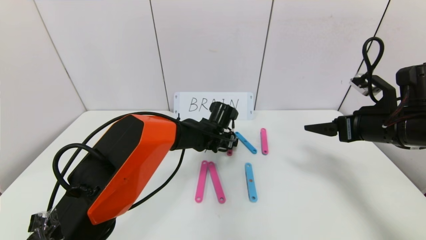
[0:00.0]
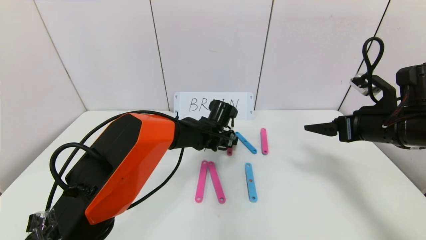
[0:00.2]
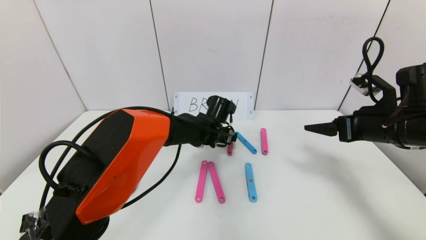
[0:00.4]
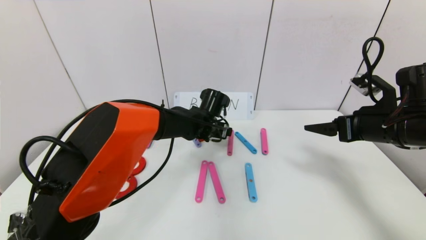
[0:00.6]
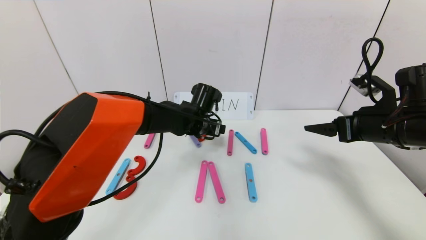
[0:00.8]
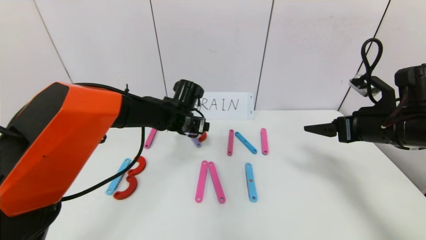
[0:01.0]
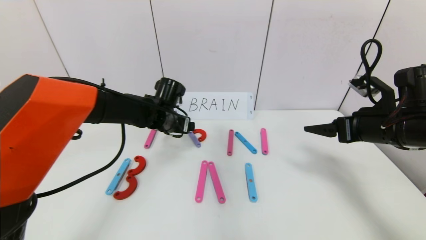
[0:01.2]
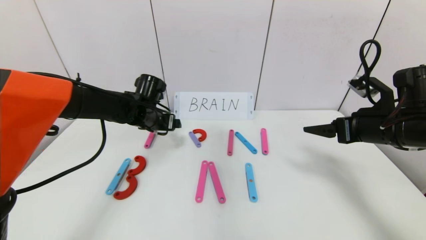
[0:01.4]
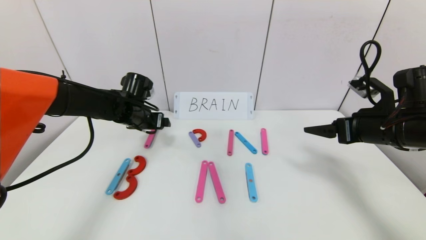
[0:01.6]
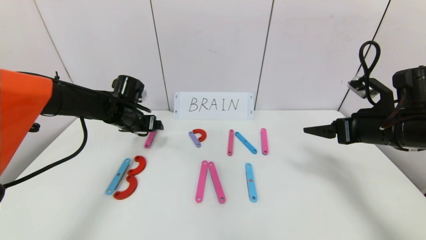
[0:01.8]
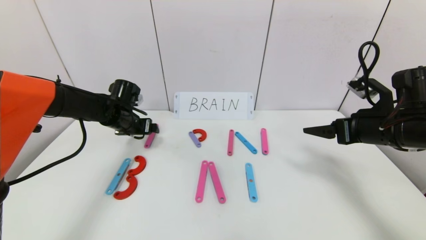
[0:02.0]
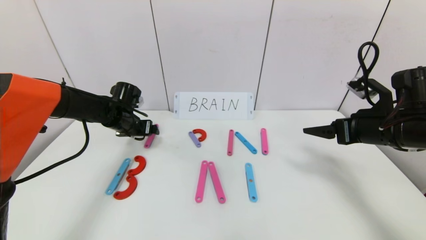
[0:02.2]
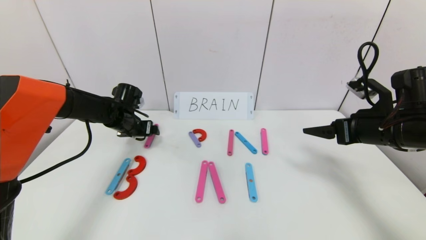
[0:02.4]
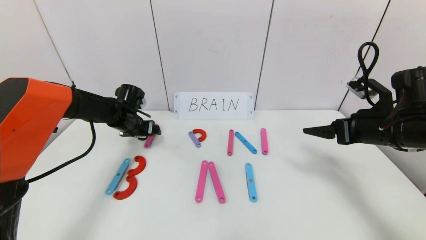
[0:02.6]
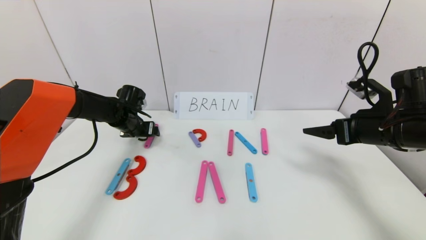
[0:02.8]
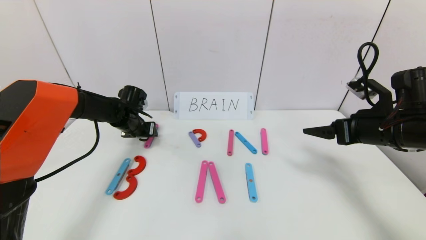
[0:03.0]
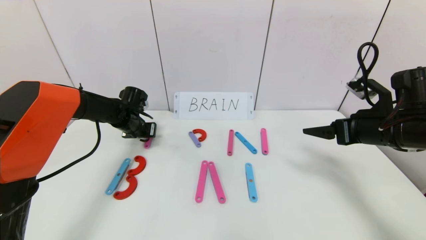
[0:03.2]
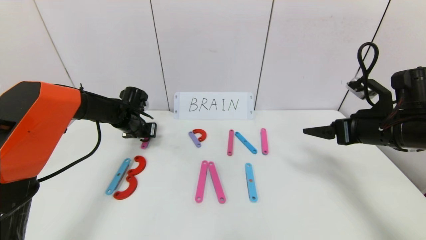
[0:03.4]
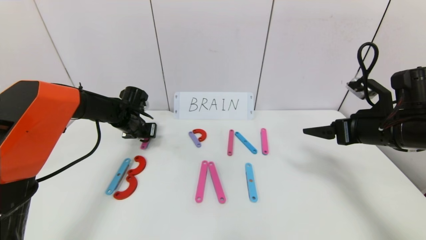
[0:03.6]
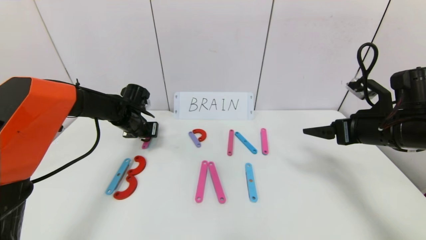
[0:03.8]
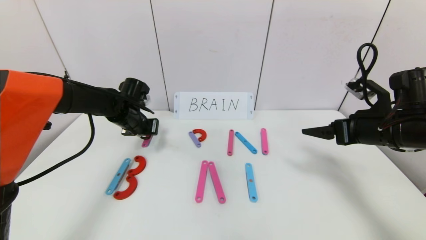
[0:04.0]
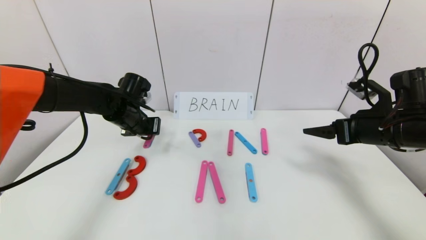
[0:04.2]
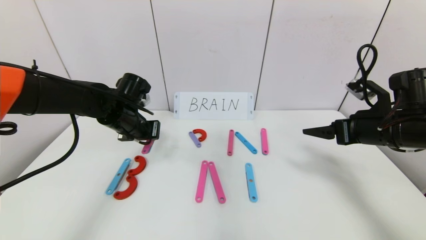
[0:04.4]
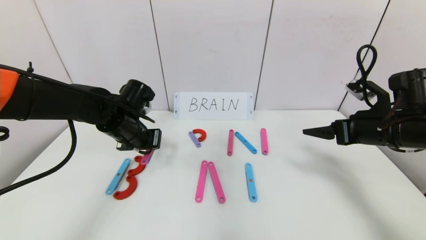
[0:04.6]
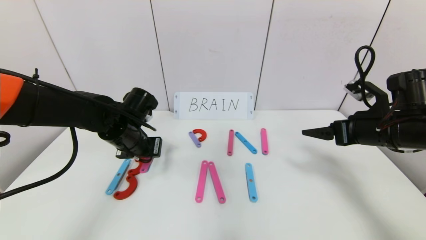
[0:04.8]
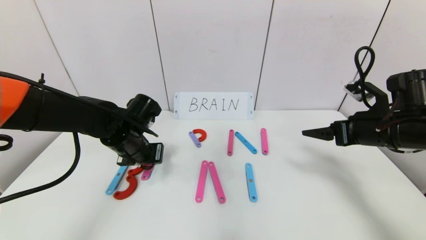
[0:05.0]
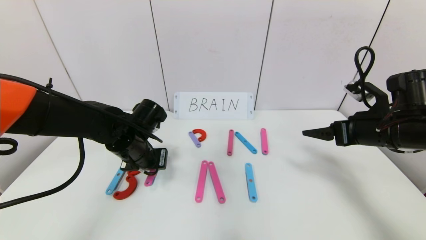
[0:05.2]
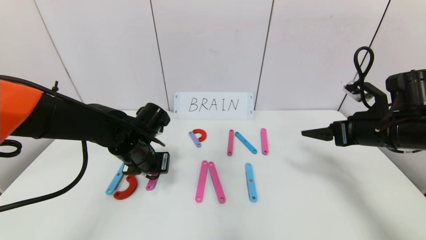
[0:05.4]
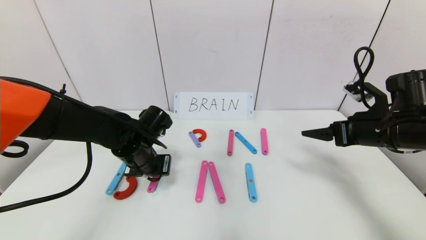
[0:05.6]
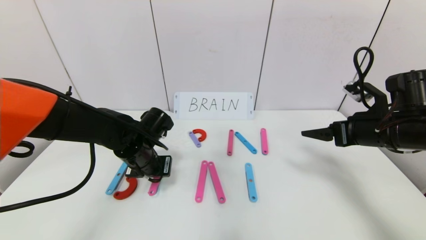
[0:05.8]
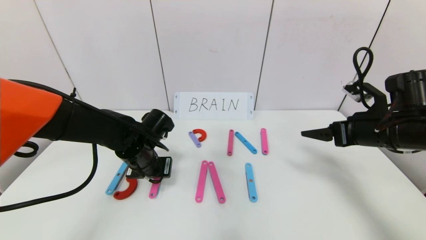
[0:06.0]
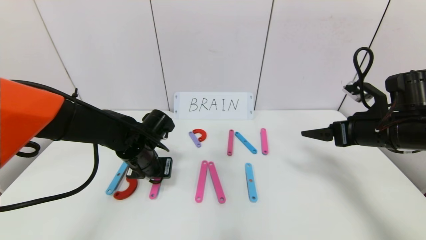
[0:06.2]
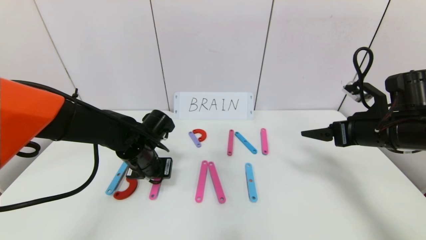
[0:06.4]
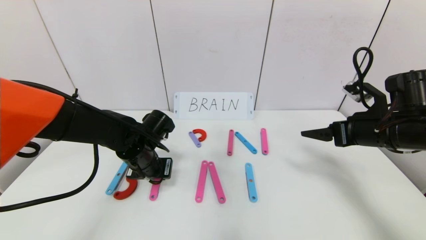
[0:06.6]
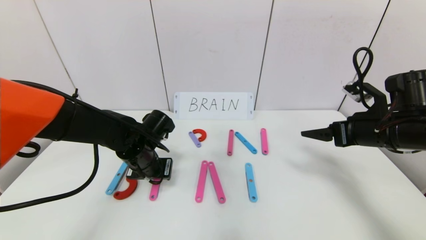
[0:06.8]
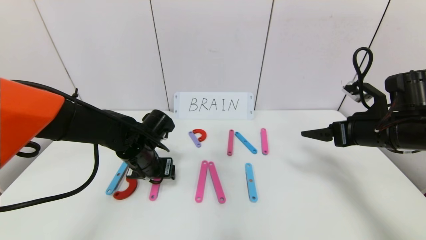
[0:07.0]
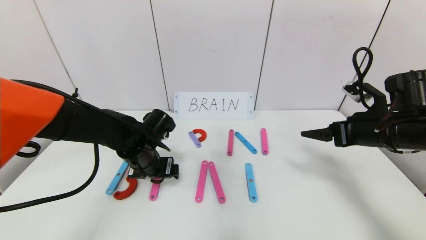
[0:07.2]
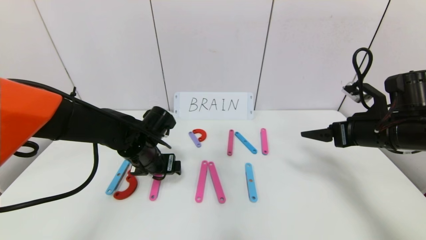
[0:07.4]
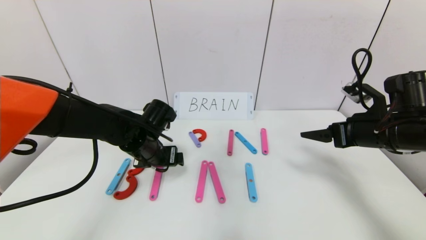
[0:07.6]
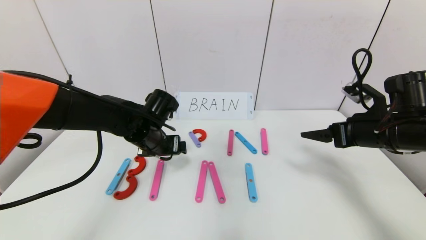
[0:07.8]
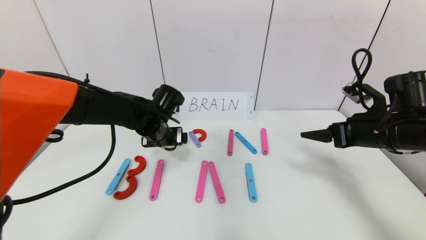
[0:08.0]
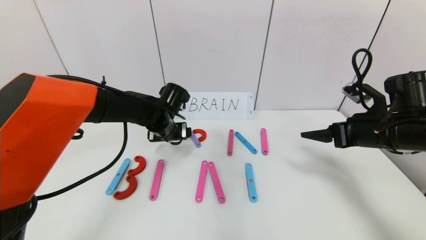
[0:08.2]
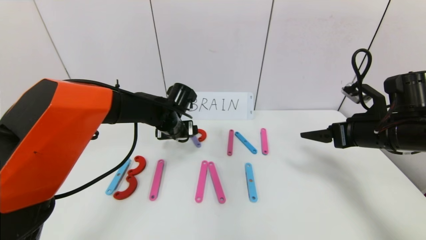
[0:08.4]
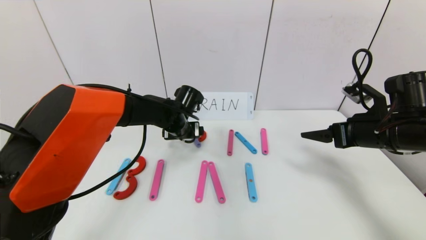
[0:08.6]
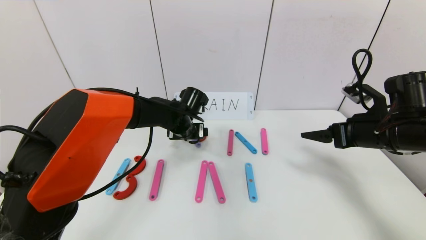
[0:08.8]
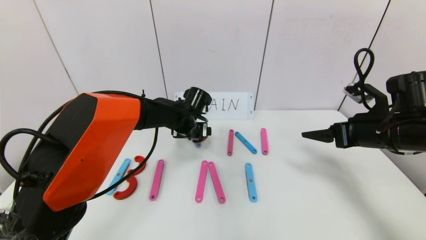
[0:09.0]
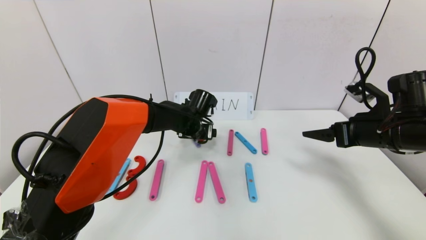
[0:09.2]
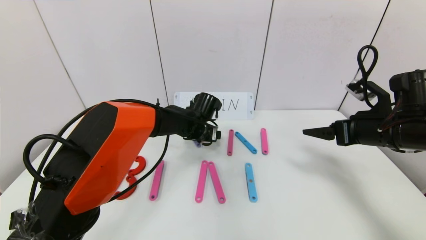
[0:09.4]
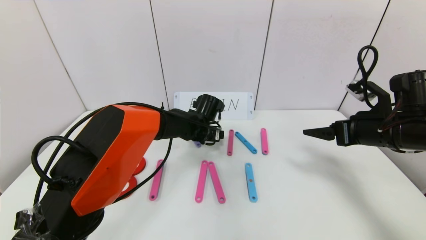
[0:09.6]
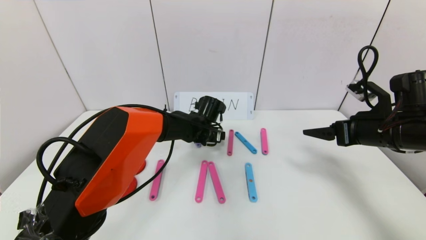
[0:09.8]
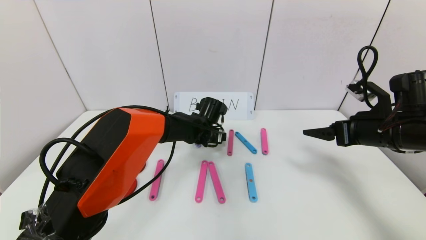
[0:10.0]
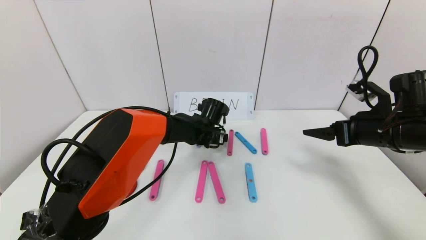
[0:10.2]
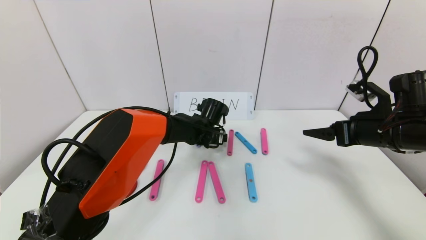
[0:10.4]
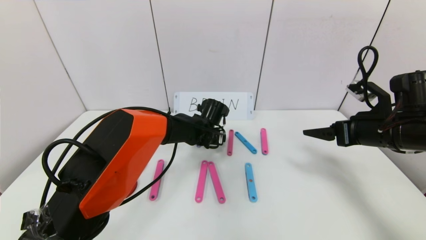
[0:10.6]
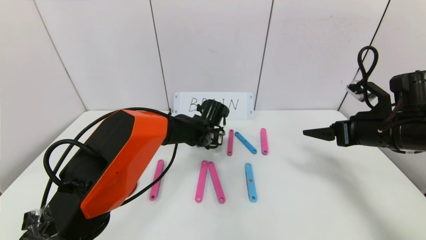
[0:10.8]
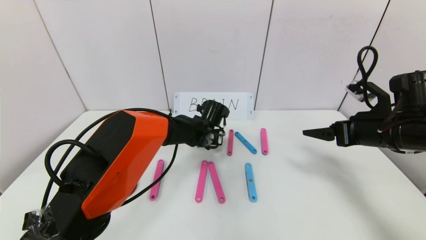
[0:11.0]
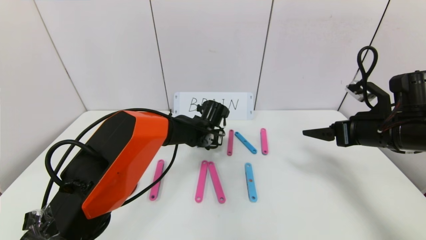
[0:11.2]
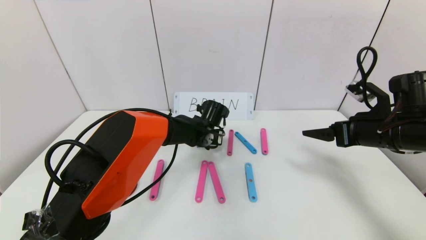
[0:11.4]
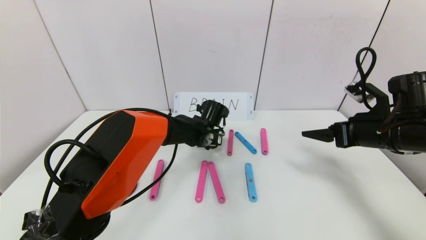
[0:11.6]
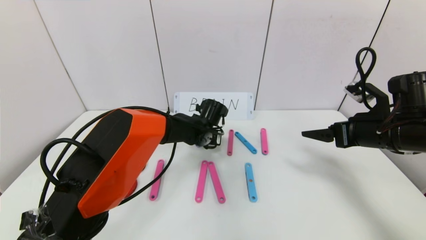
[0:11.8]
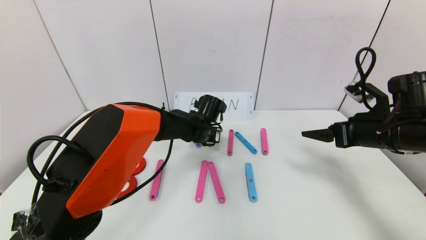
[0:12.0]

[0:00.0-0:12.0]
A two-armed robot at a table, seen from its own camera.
Task of the whole recording: rearrange the word baai as brain.
0.0 to 1.6 s: The left gripper heads to the left, covering about 20 cm.
1.6 to 3.0 s: The left gripper moves about 5 cm, and closes its fingers.
3.0 to 4.4 s: The left gripper goes approximately 10 cm backward and upward, and closes.
4.4 to 6.0 s: The left gripper moves downward, some 5 cm.
6.0 to 7.6 s: The left gripper opens.
7.6 to 9.0 s: The left gripper shifts roughly 15 cm forward and to the right.
9.0 to 10.4 s: The left gripper shifts by approximately 5 cm.
10.4 to 12.0 s: The left gripper closes up.

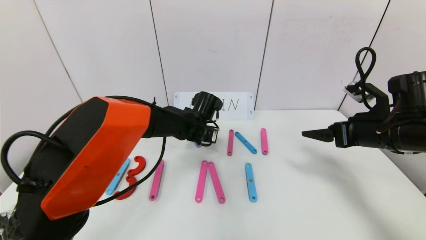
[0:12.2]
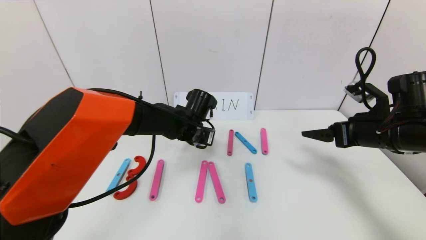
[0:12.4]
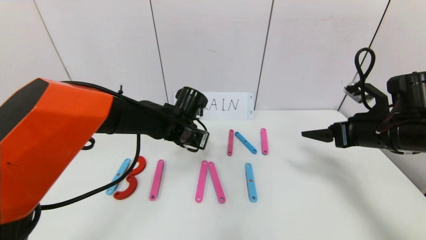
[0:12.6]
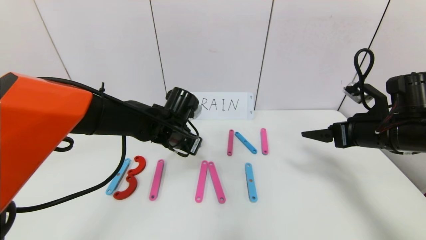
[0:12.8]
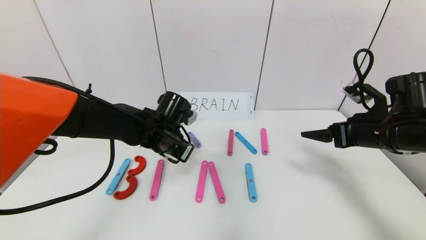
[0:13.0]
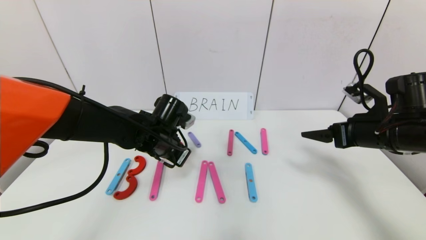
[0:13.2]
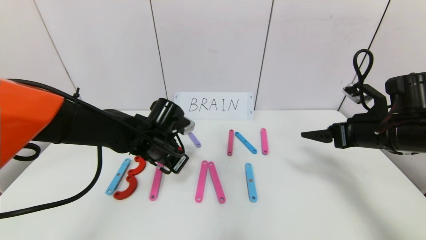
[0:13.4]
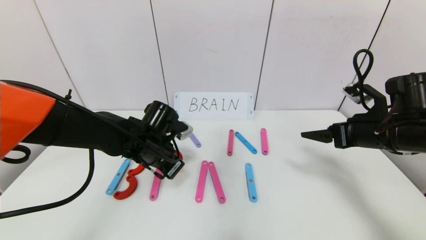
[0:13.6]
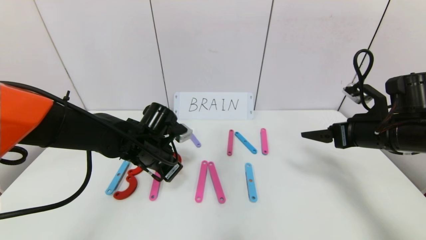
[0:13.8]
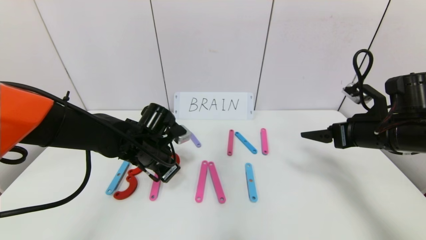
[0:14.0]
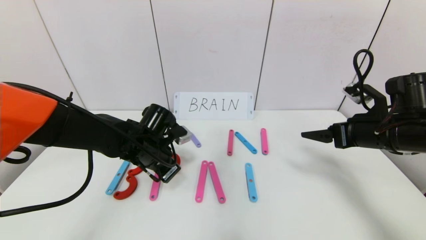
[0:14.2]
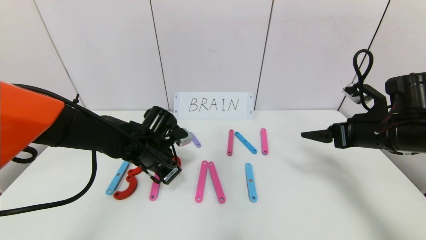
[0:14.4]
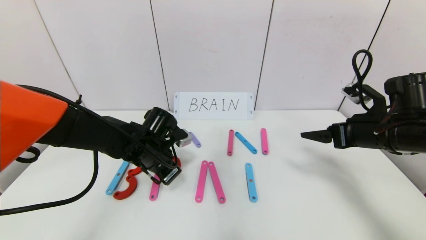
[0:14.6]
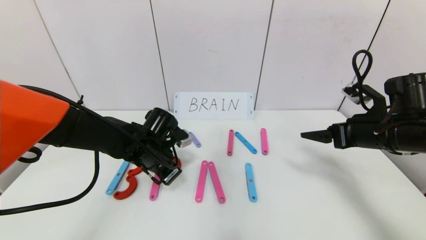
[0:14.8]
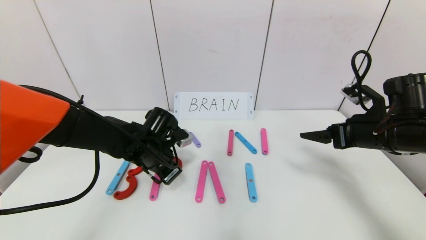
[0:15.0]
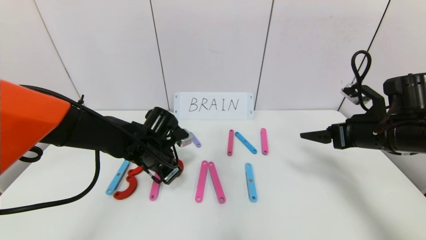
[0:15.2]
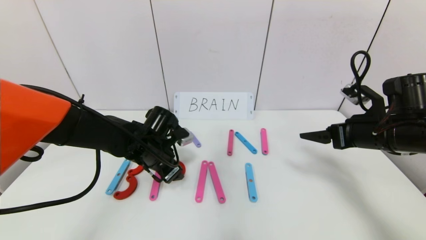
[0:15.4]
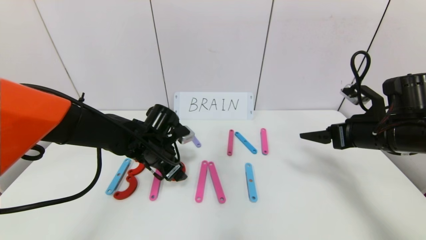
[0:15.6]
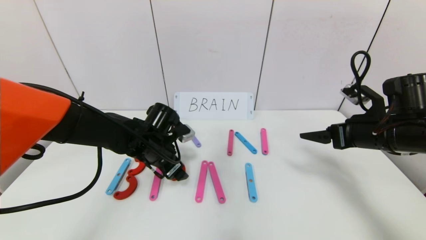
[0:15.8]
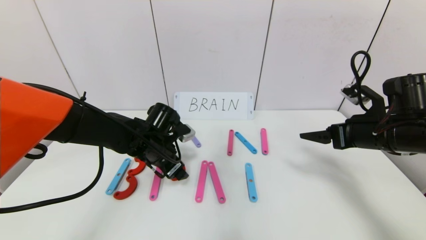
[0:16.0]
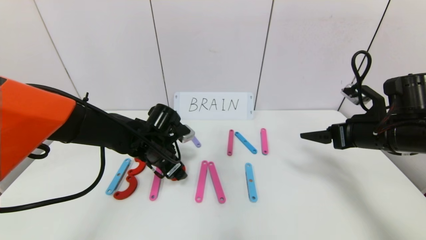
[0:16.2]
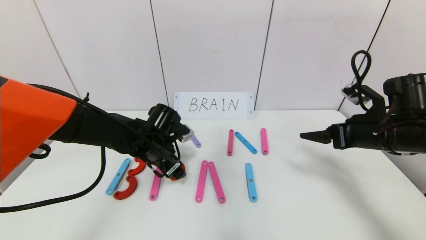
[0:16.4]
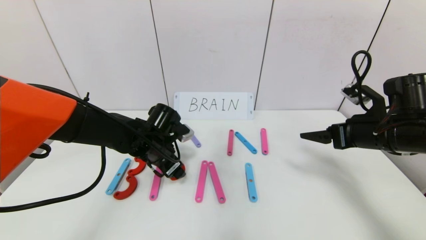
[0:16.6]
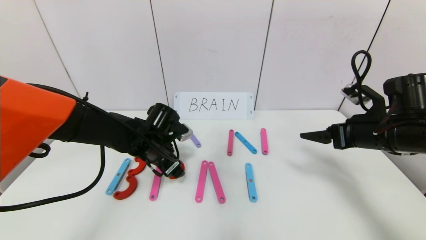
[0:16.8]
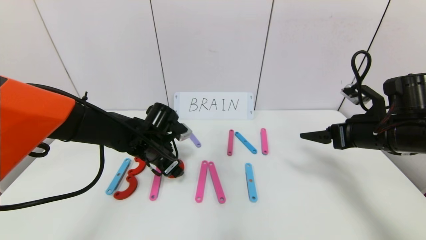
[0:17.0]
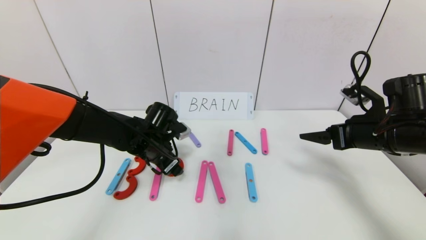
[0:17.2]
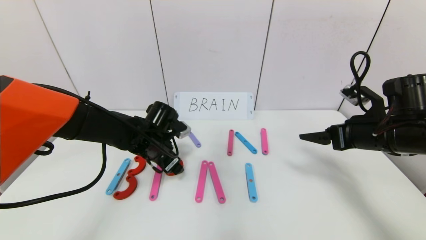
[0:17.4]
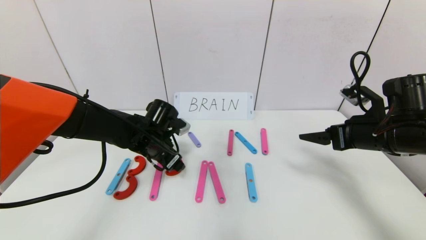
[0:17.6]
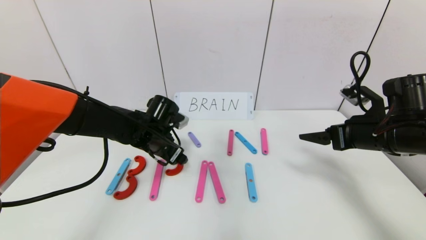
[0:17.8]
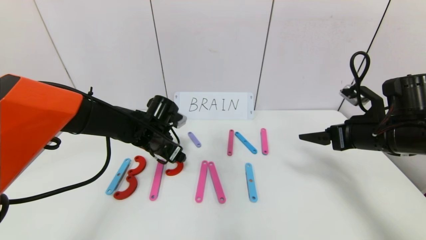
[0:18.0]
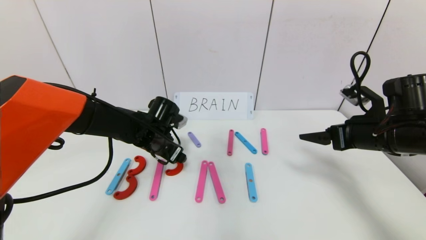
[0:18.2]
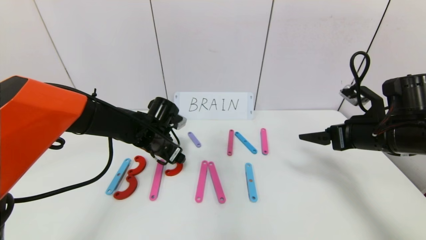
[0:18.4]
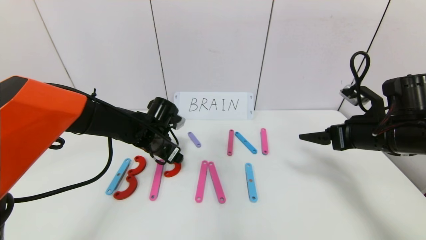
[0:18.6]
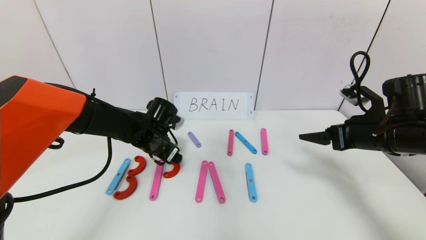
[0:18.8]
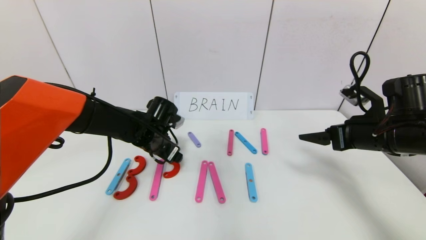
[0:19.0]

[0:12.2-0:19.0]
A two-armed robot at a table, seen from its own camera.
Task of the whole recording: rearrange the word baai as brain.
12.2 to 13.6 s: The left gripper moves to the left and backward, roughly 15 cm.
13.6 to 15.0 s: The grippers stay close to where they were, moving slightly.
15.0 to 16.2 s: The left gripper opens its fingers.
16.2 to 19.0 s: The grippers make only small movements.
